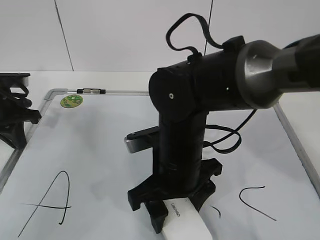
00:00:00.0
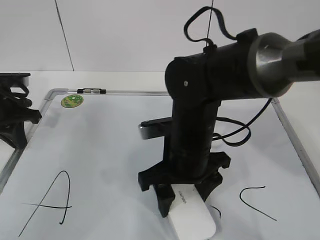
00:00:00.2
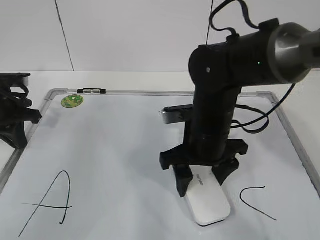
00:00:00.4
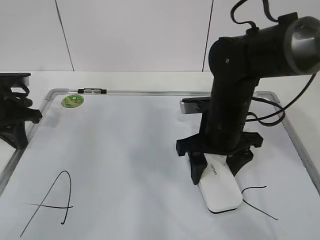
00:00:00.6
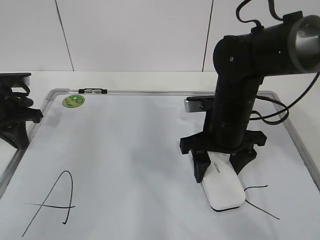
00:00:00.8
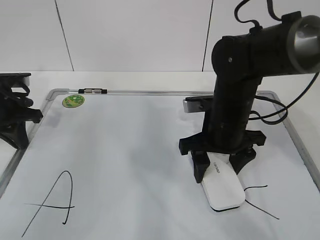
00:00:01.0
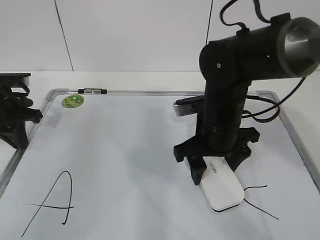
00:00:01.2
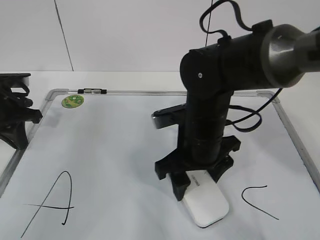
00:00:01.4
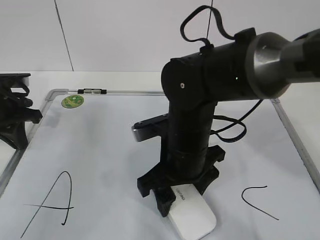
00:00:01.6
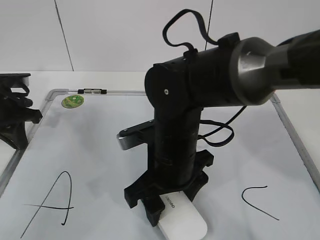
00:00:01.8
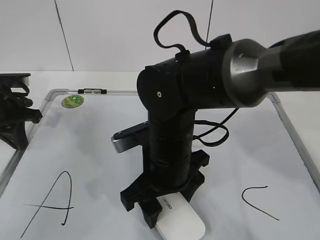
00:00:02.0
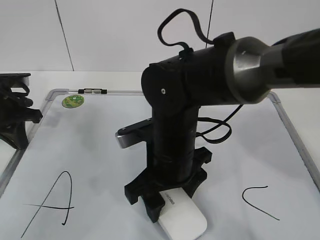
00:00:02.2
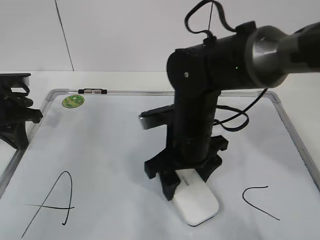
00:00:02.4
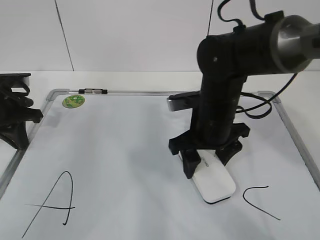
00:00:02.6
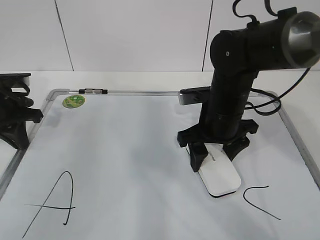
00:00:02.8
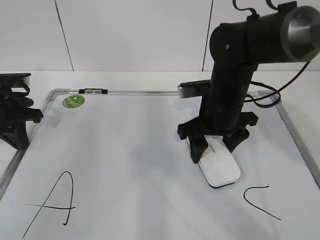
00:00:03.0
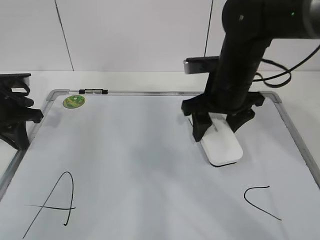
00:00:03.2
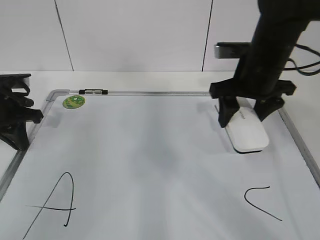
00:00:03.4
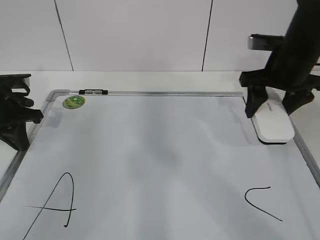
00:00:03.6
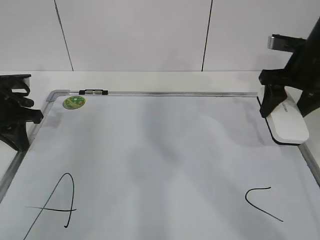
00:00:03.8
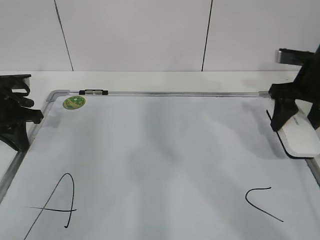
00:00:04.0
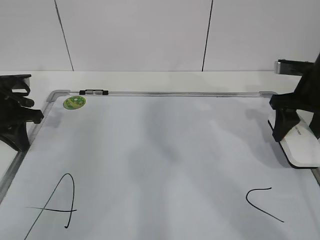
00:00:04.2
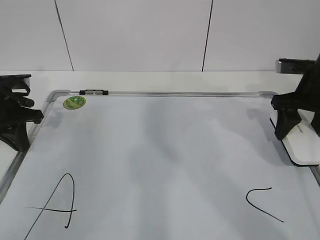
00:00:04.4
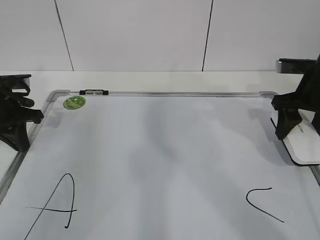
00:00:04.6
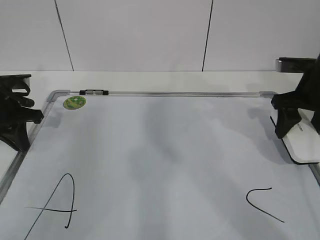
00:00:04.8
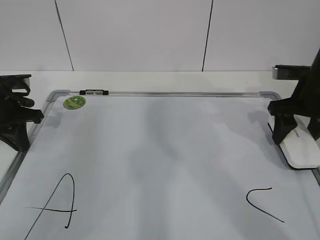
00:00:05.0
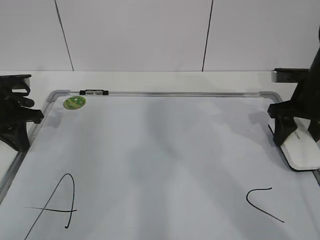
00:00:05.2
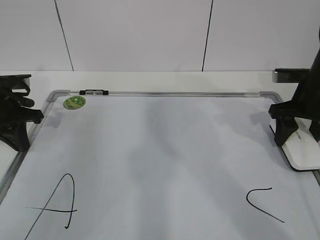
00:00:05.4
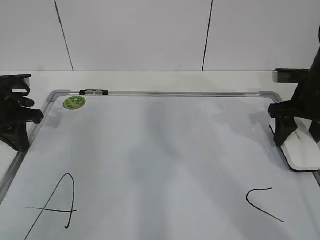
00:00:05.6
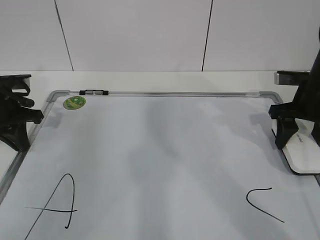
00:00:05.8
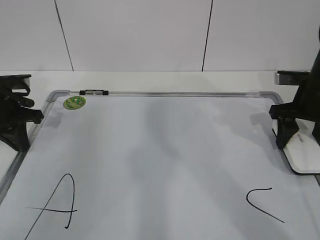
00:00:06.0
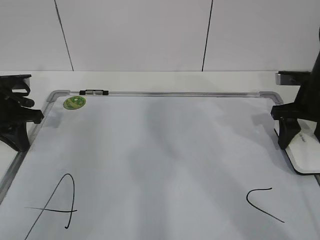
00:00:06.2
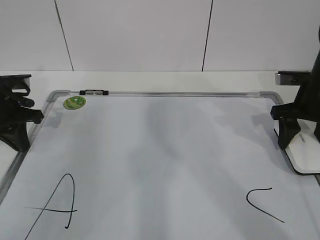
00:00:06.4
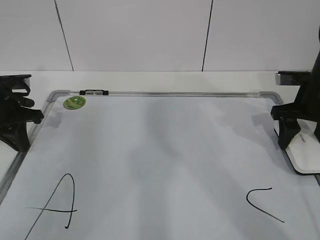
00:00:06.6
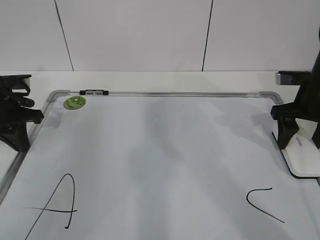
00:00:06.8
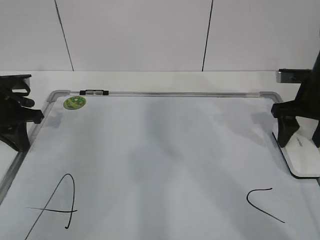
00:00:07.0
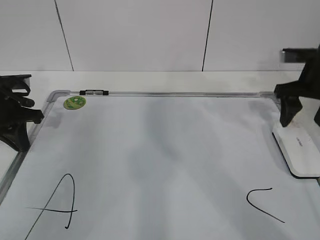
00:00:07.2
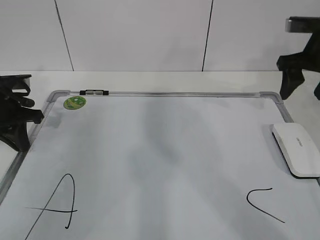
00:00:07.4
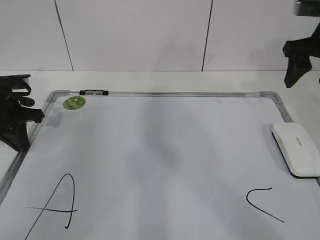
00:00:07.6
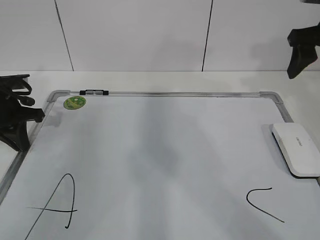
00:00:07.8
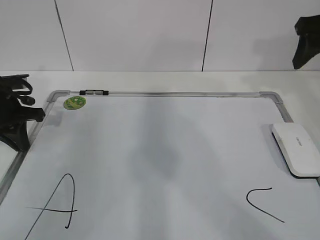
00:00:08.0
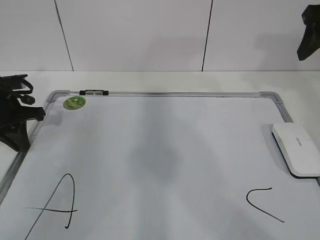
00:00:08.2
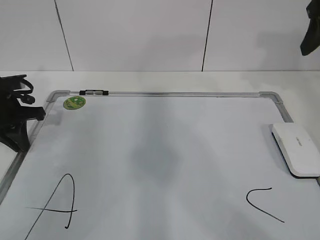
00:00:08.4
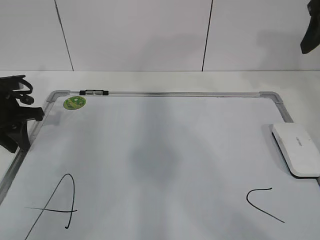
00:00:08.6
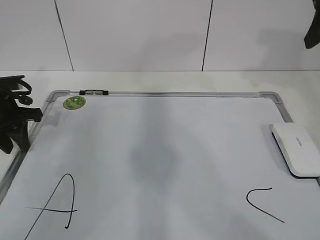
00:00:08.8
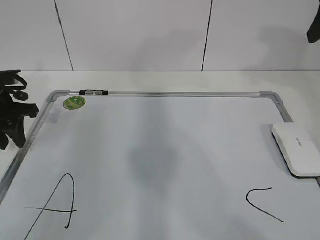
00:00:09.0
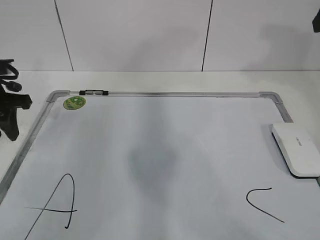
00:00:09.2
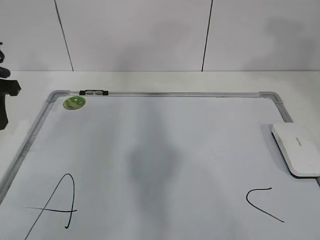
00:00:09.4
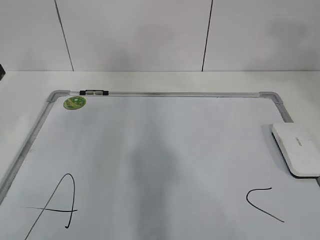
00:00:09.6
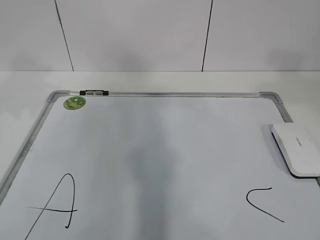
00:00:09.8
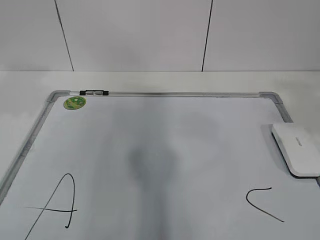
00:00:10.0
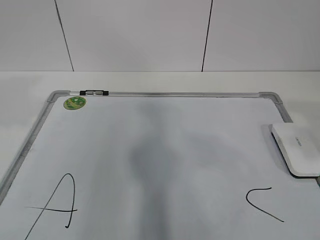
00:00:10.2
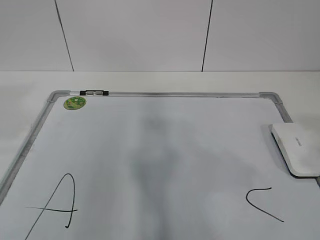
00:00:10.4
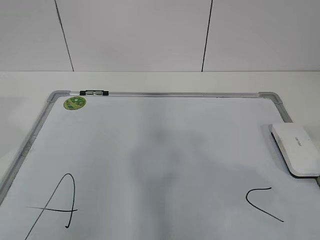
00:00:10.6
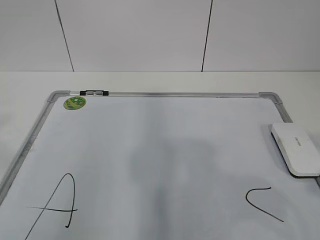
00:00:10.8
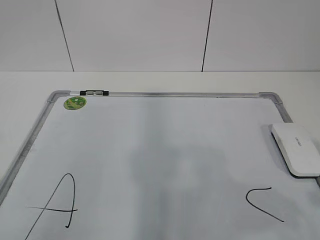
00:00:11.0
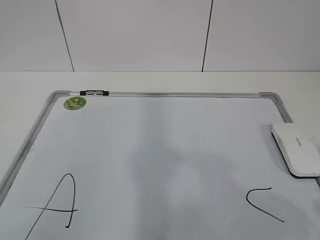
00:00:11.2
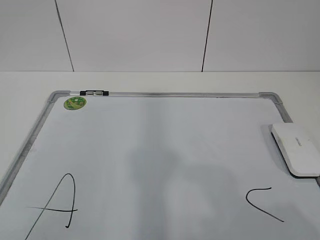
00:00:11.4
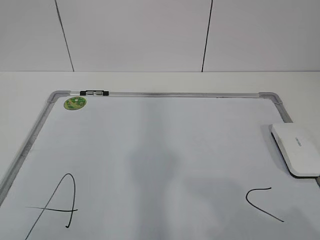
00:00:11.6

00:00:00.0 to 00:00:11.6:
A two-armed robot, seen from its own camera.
Task of the whole recording: pick up the eraser on the blackboard and erase the letter "B".
Step, 00:00:00.4 to 00:00:03.4: Put down the eraser with your right hand.
00:00:01.4 to 00:00:02.8: The right gripper shifts by about 5 cm.
00:00:02.8 to 00:00:04.4: The right gripper is displaced to the right by about 15 cm.
00:00:04.4 to 00:00:05.8: The grippers make only small movements.
00:00:05.8 to 00:00:07.2: The right gripper opens.
00:00:07.2 to 00:00:08.8: The left gripper opens its fingers. Meanwhile the right gripper heads upward, covering approximately 15 cm.
00:00:08.8 to 00:00:10.2: The left gripper travels upward and backward by some 25 cm; the right gripper is displaced backward by roughly 25 cm.
00:00:10.2 to 00:00:11.6: The right gripper is displaced downward and backward by about 15 cm. Meanwhile the left gripper heads backward, covering roughly 25 cm.

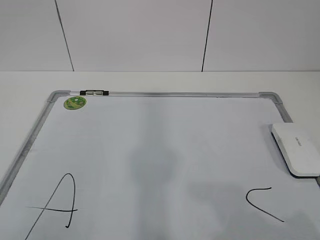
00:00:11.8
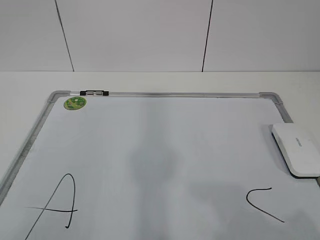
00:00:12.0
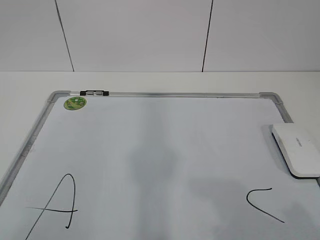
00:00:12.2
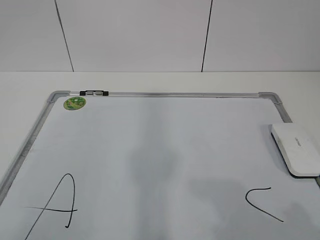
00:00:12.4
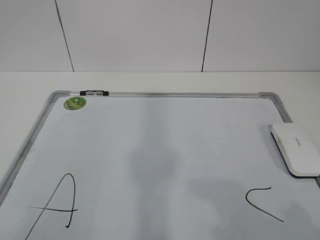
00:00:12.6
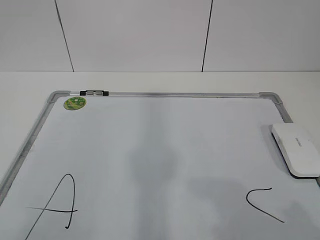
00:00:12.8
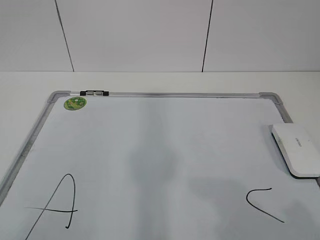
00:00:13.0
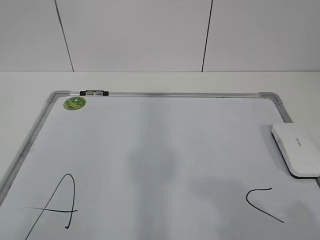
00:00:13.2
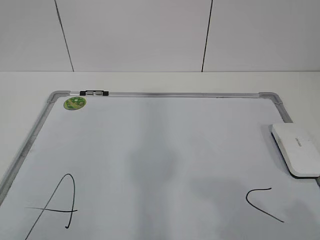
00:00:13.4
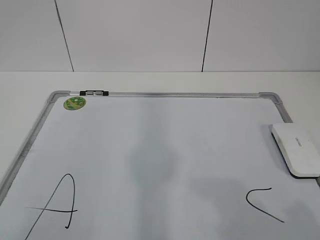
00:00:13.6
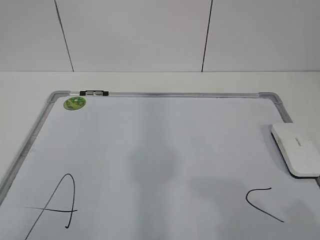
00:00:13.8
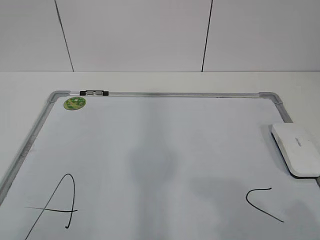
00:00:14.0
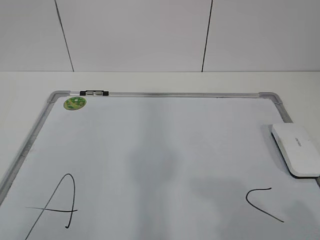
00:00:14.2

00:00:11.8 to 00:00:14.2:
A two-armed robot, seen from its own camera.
Task of the whole recording: pick up the eraser on the blackboard and erase the letter "B".
00:00:13.0 to 00:00:14.2: Both grippers stay put.
